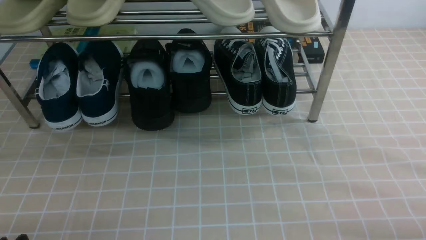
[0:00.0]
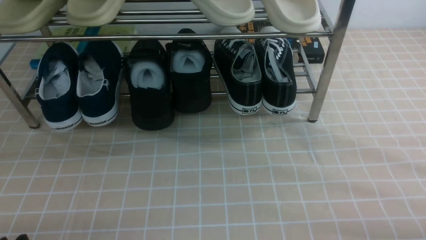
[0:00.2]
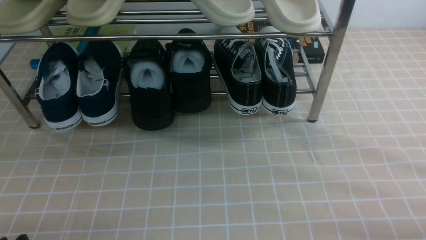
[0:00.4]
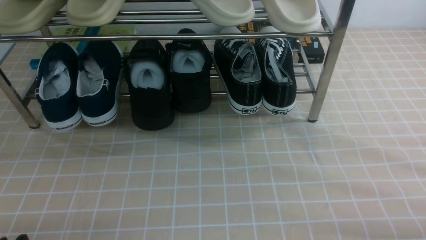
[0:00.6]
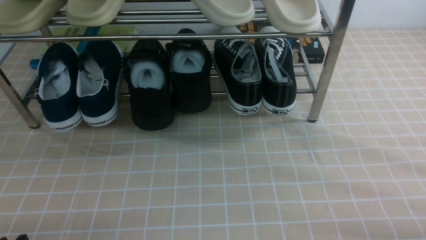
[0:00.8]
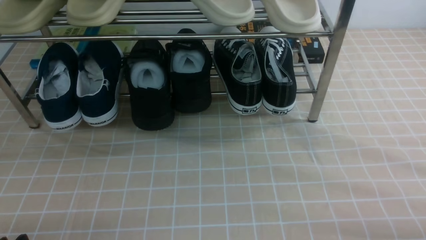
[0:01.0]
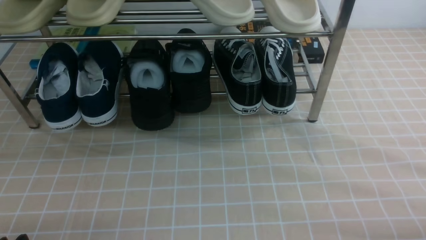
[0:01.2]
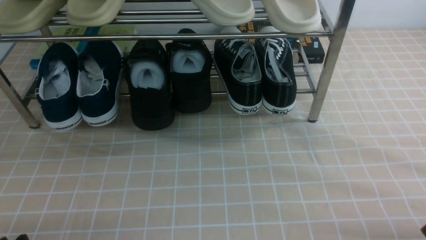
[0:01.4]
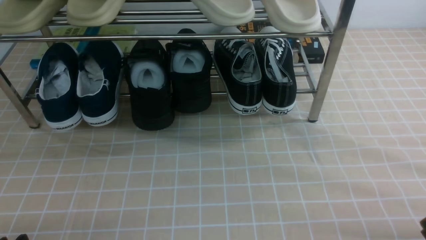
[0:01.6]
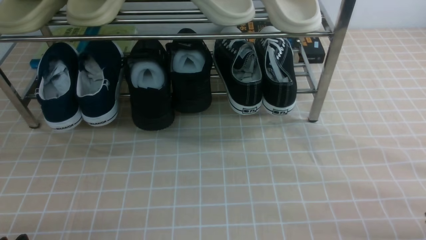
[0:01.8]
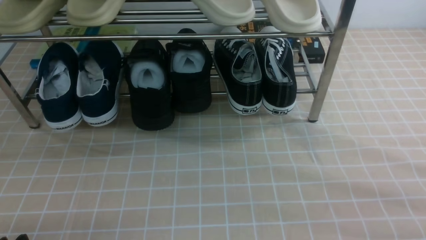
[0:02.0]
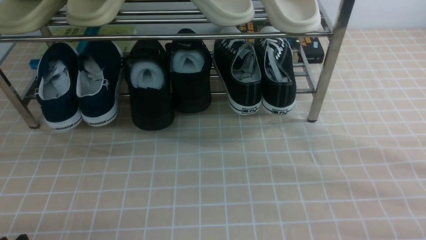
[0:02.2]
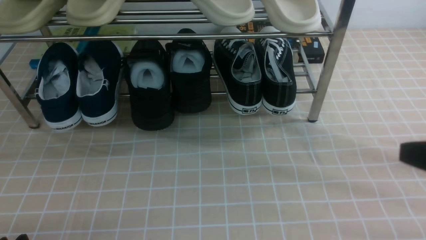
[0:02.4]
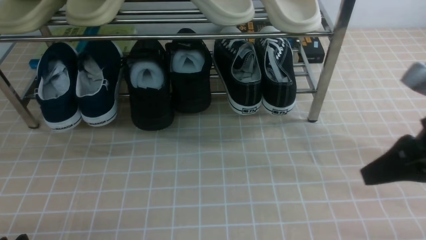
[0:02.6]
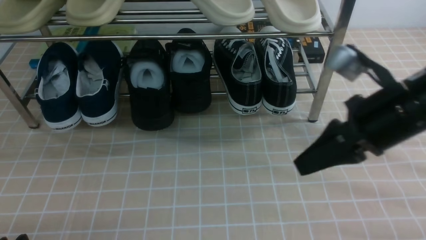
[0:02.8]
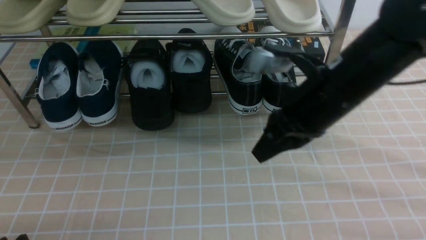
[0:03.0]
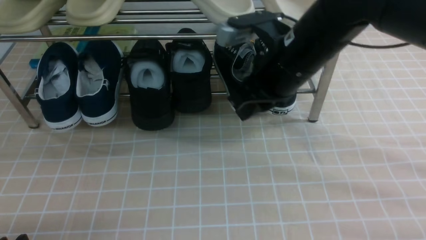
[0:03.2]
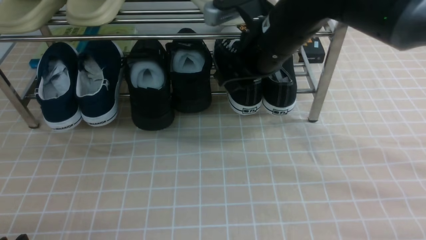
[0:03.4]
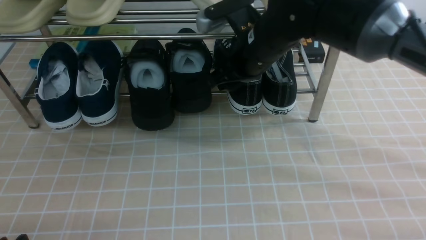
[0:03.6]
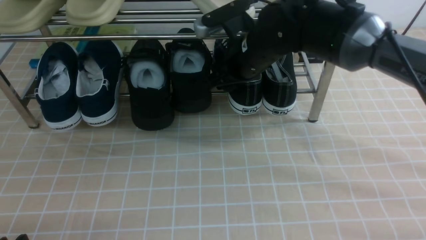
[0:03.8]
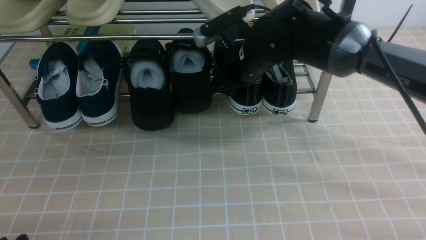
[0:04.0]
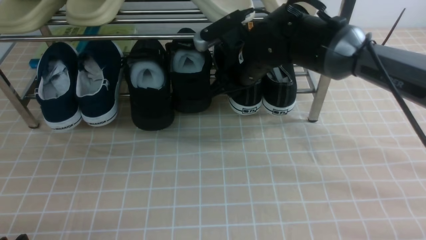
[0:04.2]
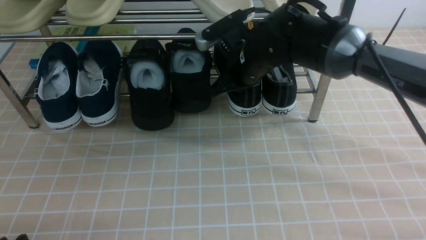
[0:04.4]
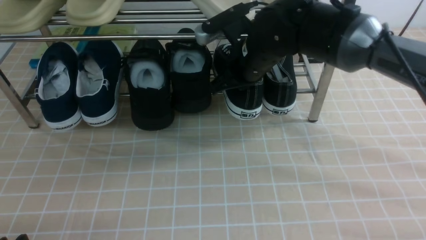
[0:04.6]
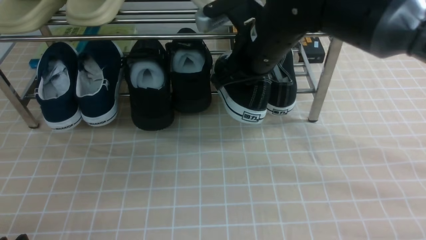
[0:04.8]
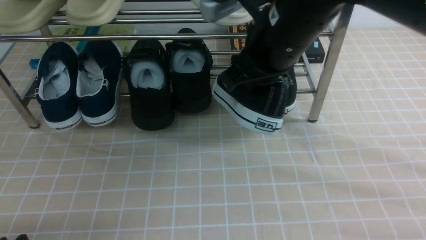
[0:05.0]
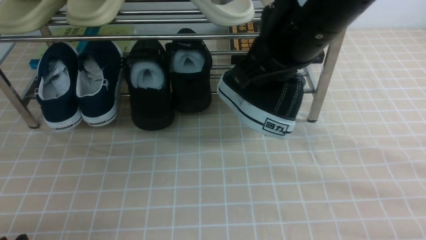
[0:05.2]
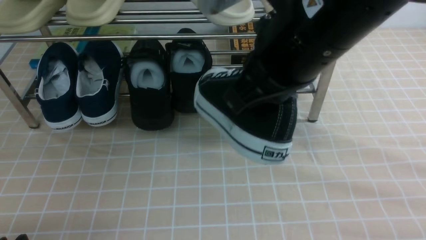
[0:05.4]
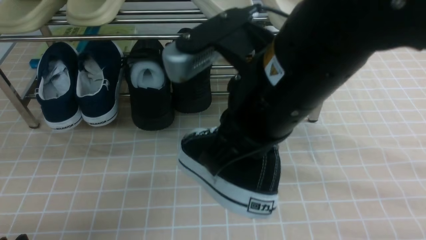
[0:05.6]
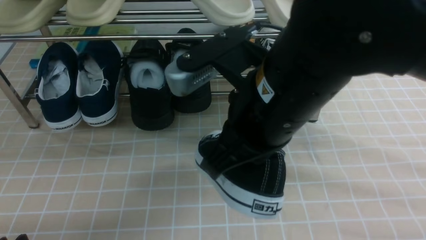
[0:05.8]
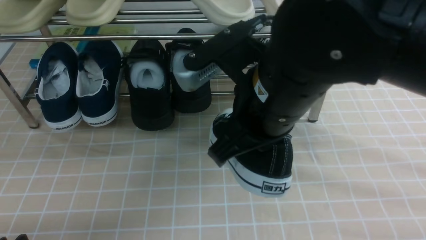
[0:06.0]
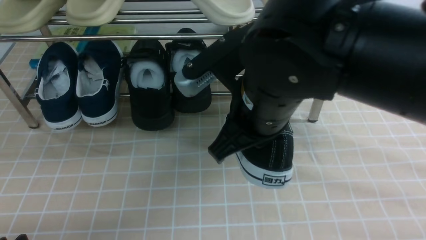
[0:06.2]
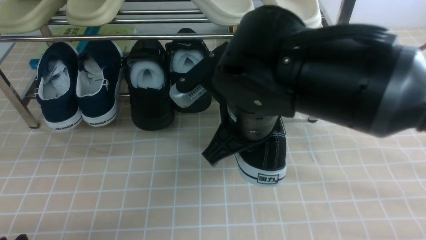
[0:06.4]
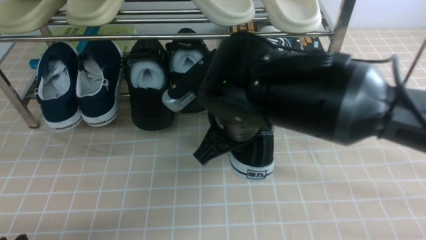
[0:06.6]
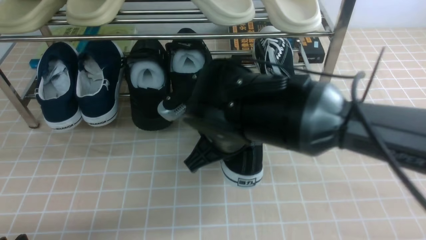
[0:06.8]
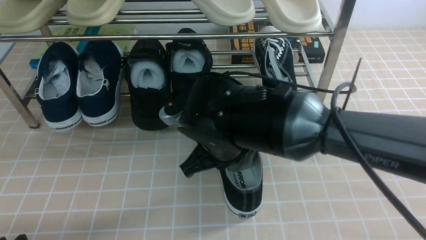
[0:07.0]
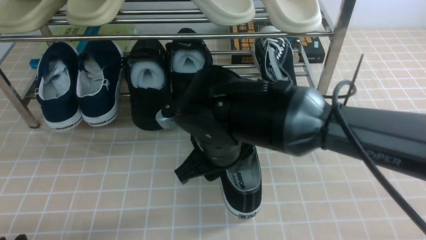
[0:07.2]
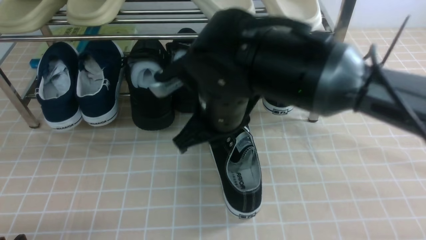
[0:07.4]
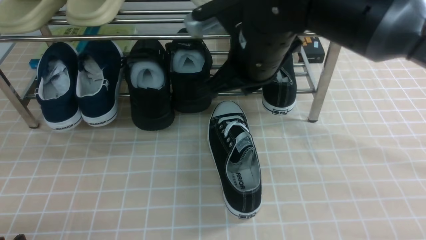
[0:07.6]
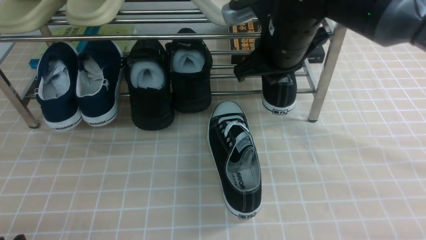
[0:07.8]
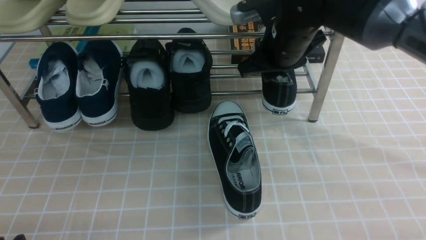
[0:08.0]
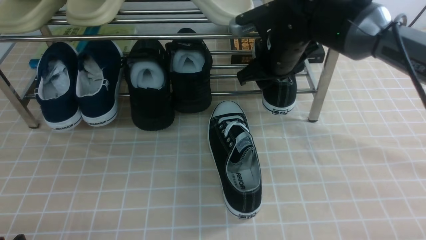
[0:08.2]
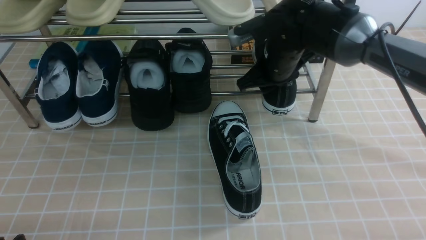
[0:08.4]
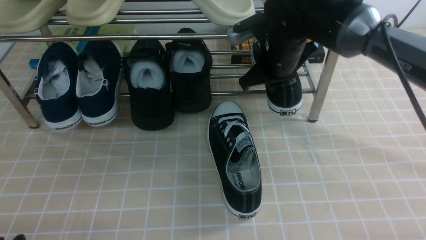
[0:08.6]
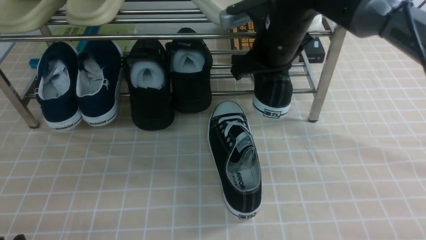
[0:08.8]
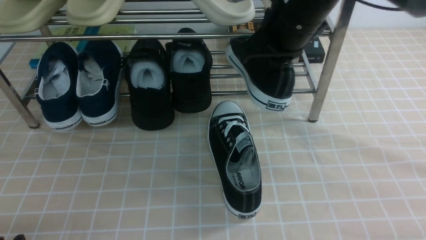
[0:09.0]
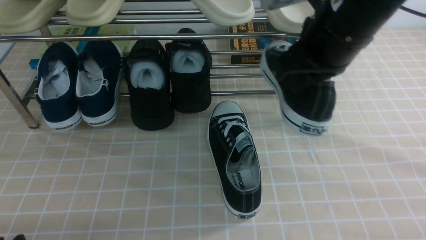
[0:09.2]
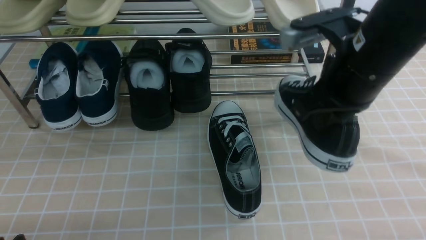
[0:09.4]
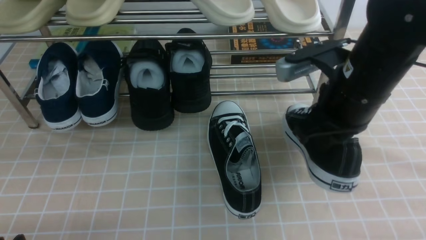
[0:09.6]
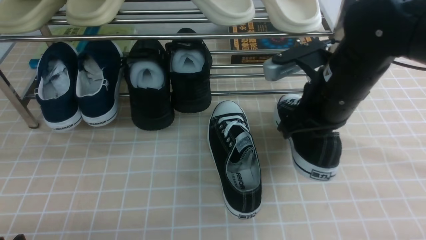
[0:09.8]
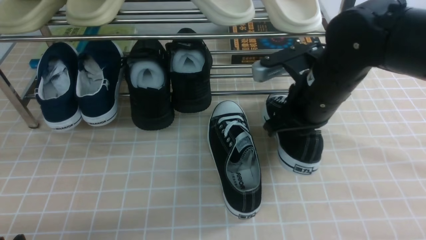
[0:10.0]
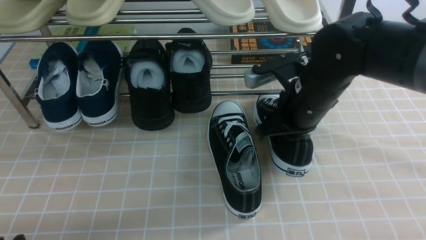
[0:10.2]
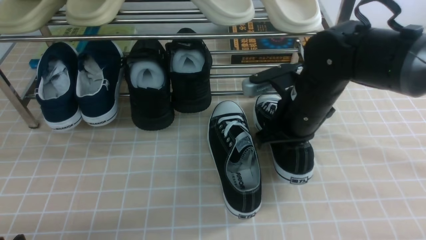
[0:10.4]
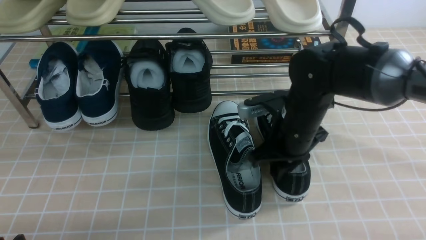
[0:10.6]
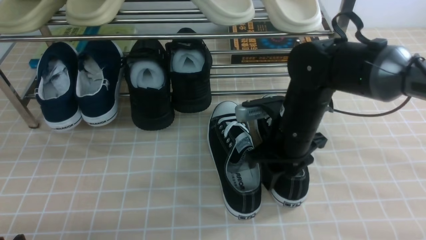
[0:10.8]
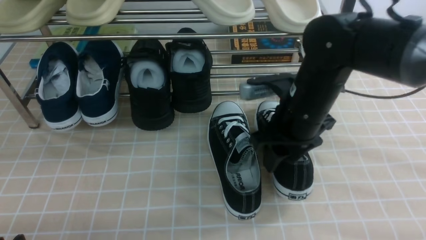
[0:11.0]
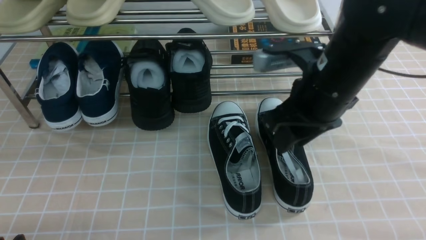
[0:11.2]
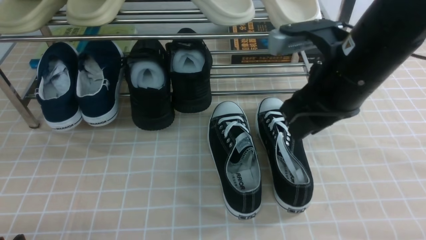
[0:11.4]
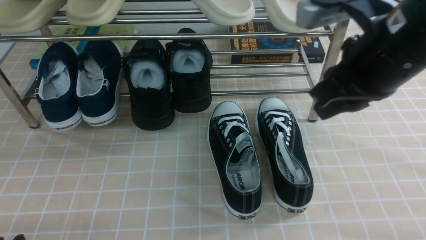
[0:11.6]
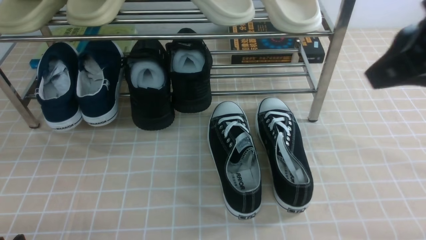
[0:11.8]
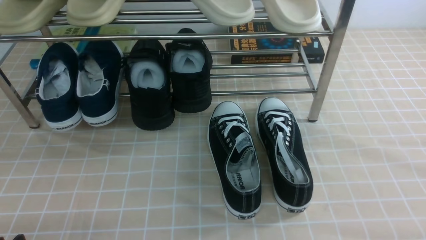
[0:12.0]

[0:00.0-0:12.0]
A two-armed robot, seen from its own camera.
Step, 0:00.0 to 0:04.4: use the right arm to clamp a shoe on the right side of the shoe rack.
Step, 0:04.6 to 0:07.4: use the right arm to take out the clamped shoe from the shoe rack and put it down.
Step, 0:07.6 to 0:08.4: use the right arm to clamp a shoe on the right side of the shoe rack.
Step, 0:08.6 to 0:10.6: use the right arm to take out the clamped shoe from the shoe rack and put it down.
0:01.6 to 0:03.0: The right gripper shifts about 30 cm forward, to the left and upward, and closes up.
0:03.0 to 0:04.4: The right gripper goes about 15 cm forward and to the left, and opens and closes again.
0:04.4 to 0:06.0: The right gripper heads backward and upward, covering about 20 cm, and closes up.
0:06.0 to 0:07.6: The right gripper travels forward by some 10 cm.
0:07.6 to 0:09.0: The right gripper is displaced to the right and forward by about 10 cm, and opens and closes again.
0:09.0 to 0:10.4: The right gripper travels downward by roughly 10 cm.
0:10.4 to 0:12.0: The right gripper shifts about 30 cm upward, backward and to the right, and opens, then closes again.

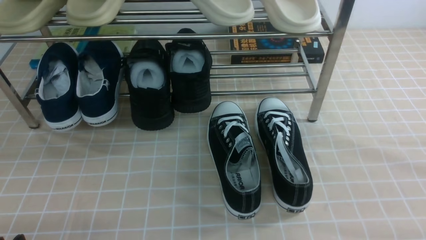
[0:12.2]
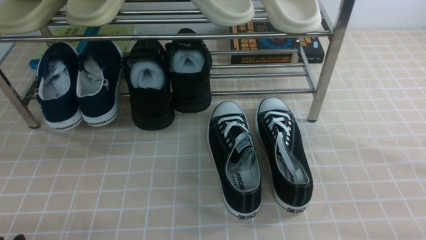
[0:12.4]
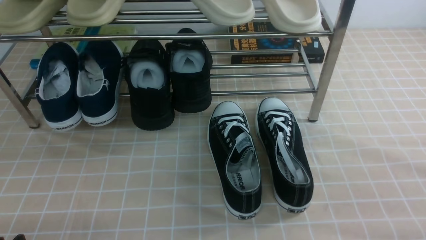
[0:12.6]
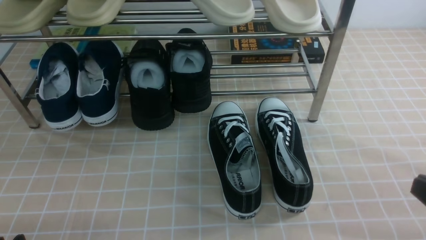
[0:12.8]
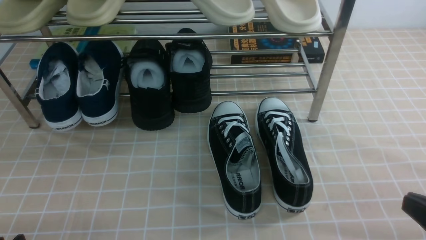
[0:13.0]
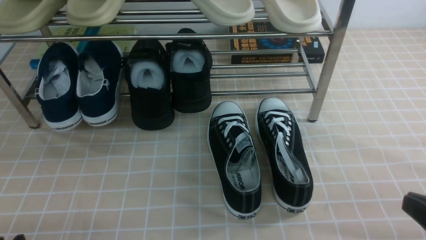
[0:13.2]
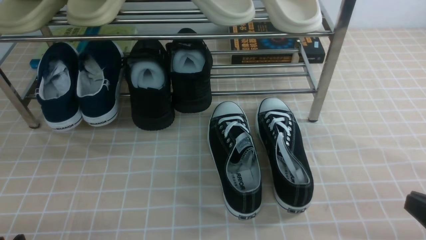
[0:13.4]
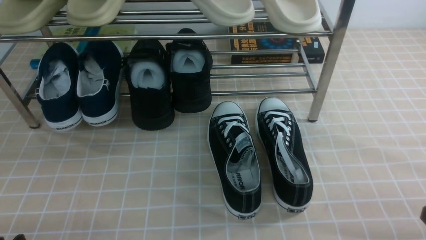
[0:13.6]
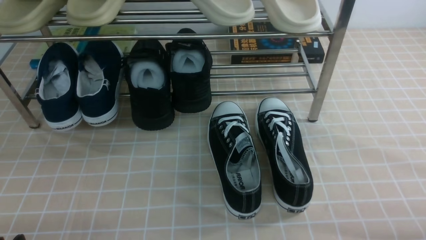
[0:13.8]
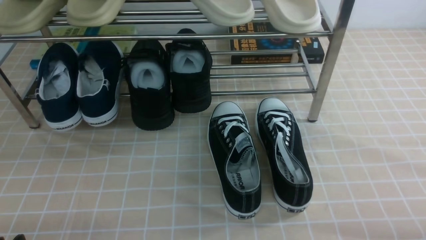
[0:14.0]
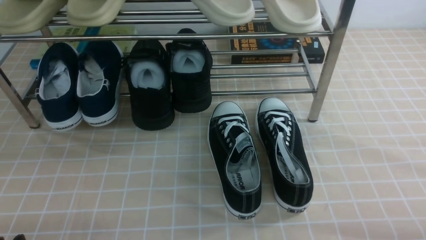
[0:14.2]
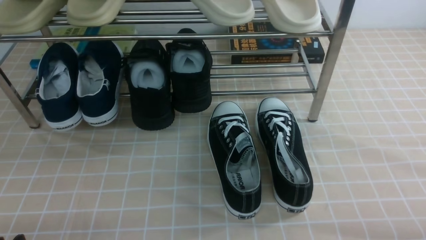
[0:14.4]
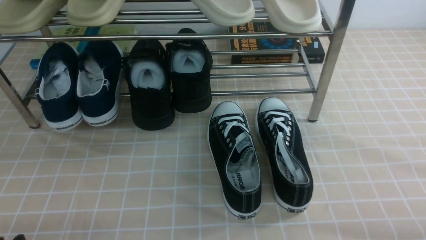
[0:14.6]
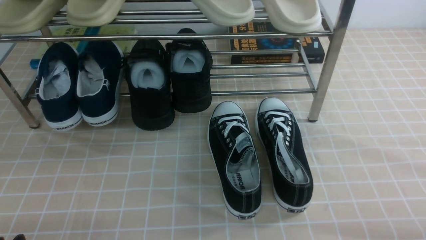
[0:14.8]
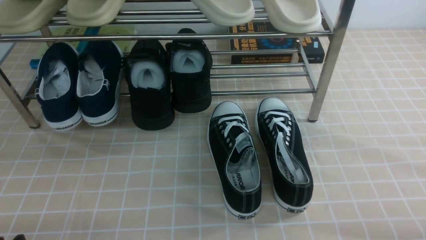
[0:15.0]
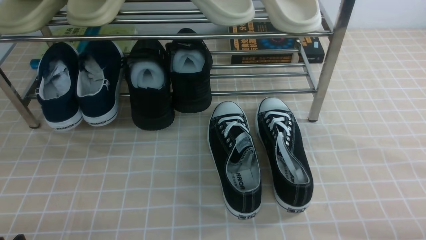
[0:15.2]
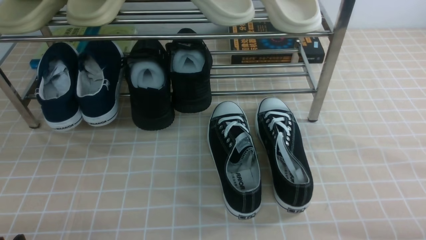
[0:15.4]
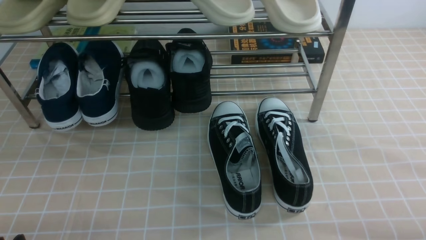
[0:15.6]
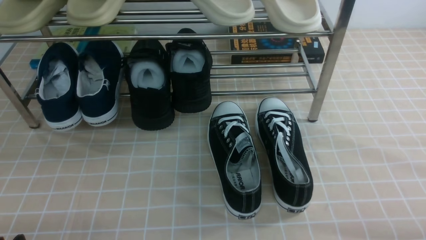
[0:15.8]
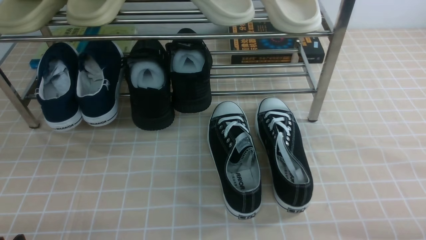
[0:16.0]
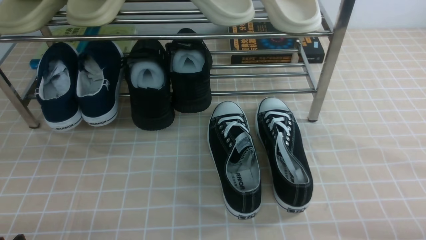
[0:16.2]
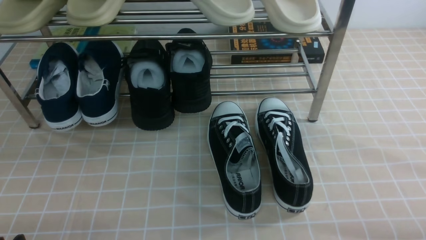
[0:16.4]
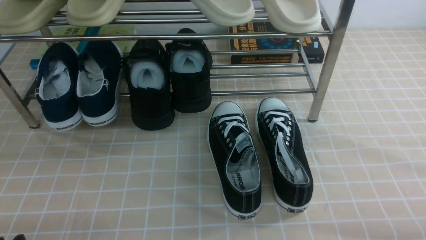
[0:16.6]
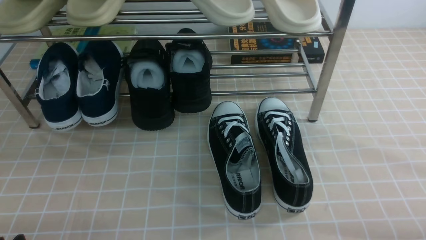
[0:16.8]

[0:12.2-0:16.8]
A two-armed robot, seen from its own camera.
0:15.2 to 0:16.8: Neither gripper changes place.
